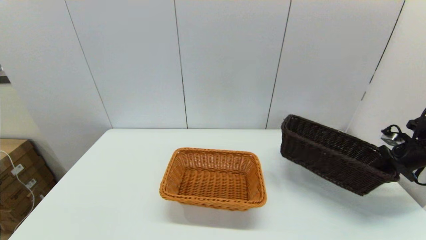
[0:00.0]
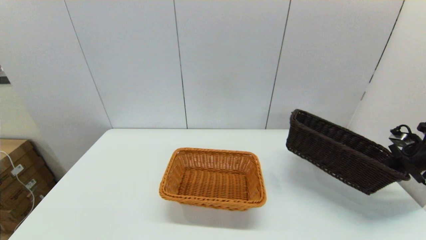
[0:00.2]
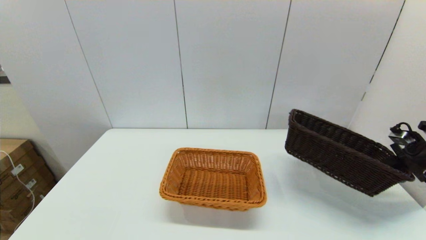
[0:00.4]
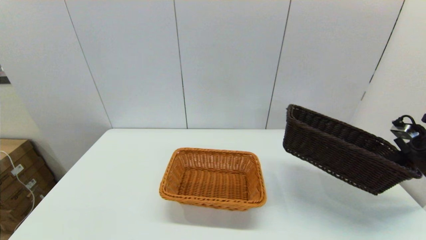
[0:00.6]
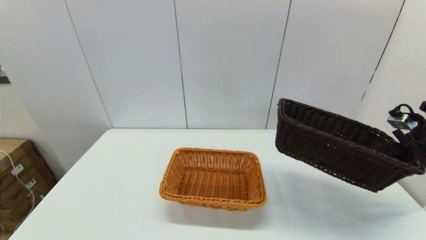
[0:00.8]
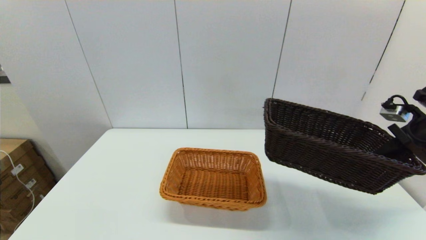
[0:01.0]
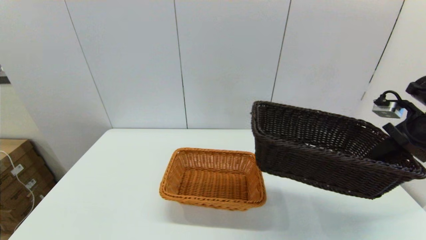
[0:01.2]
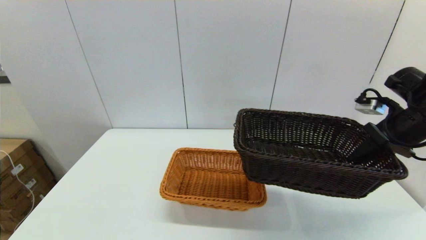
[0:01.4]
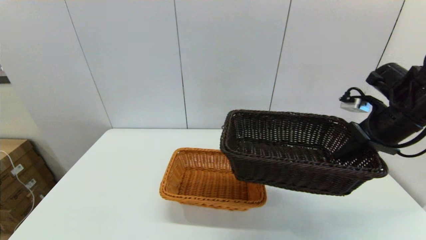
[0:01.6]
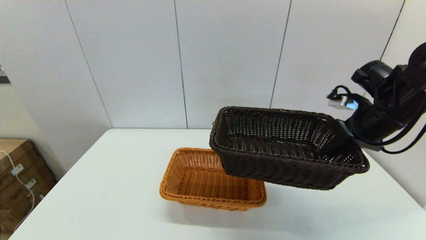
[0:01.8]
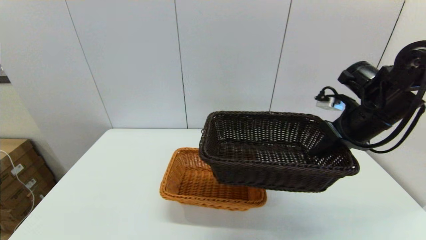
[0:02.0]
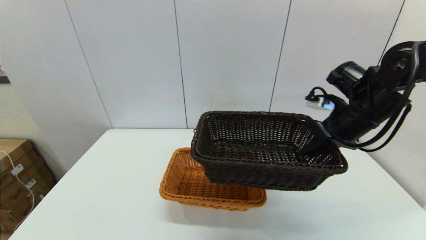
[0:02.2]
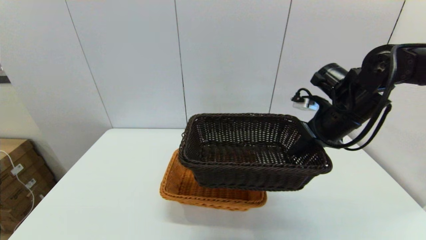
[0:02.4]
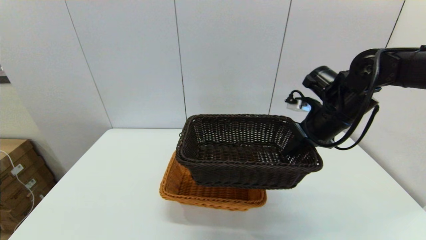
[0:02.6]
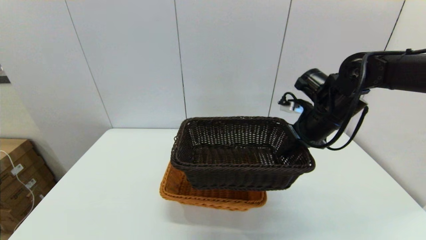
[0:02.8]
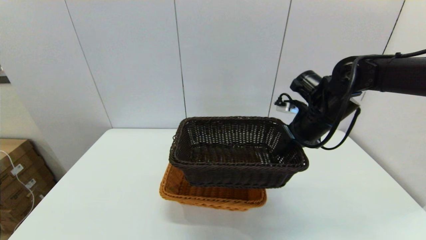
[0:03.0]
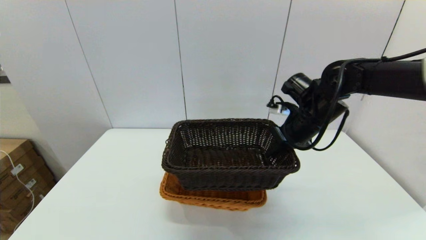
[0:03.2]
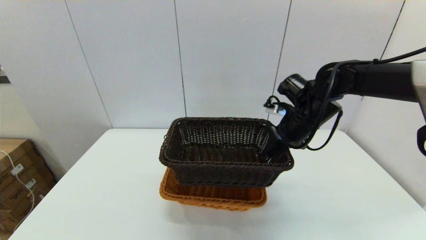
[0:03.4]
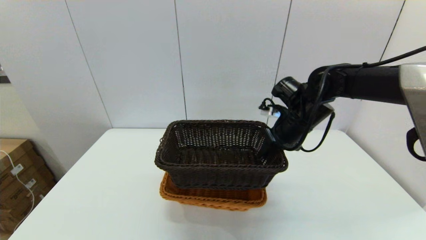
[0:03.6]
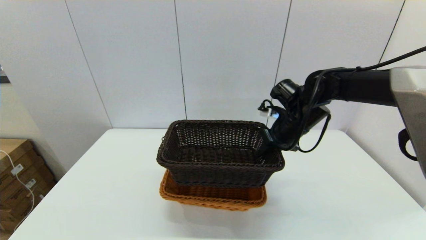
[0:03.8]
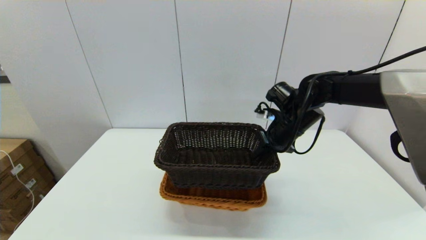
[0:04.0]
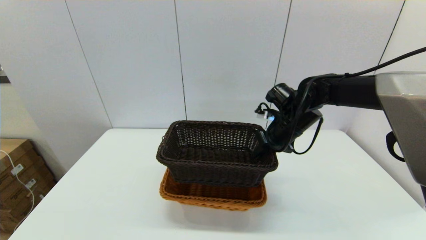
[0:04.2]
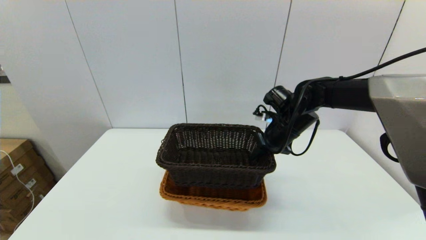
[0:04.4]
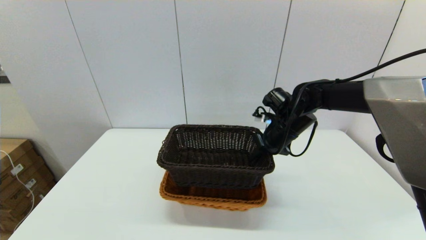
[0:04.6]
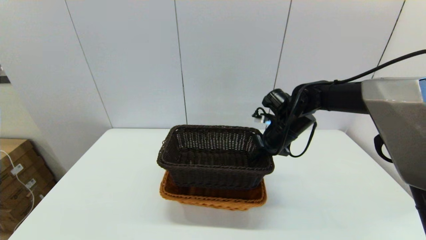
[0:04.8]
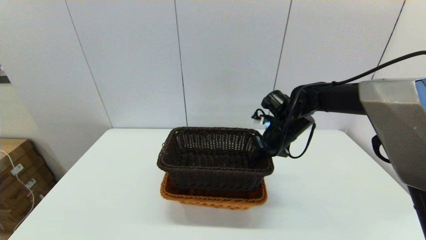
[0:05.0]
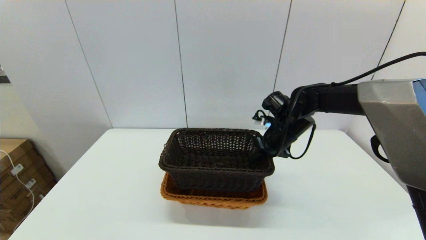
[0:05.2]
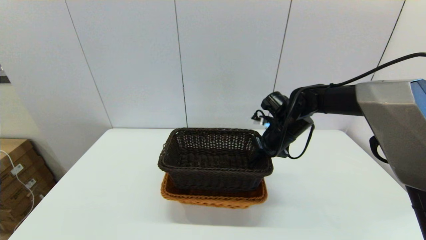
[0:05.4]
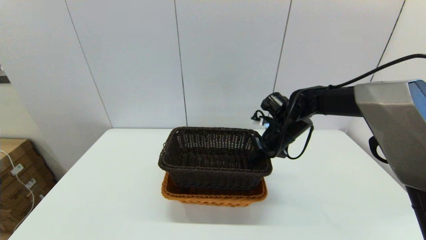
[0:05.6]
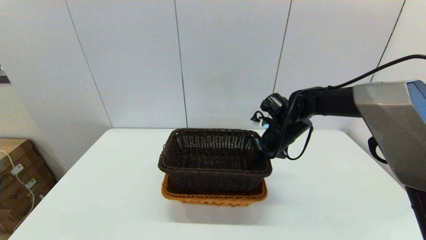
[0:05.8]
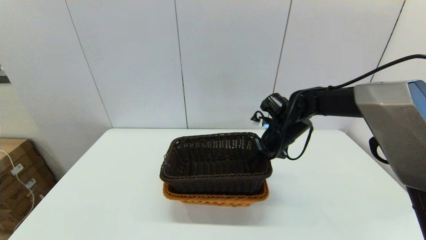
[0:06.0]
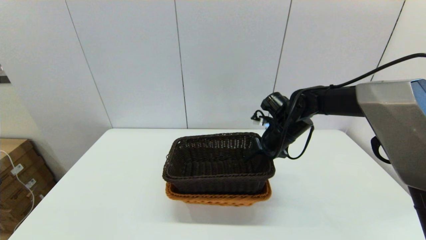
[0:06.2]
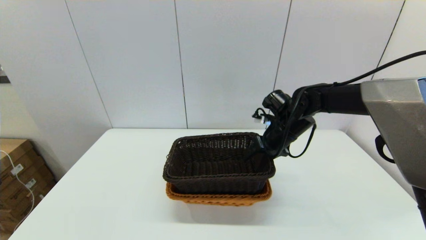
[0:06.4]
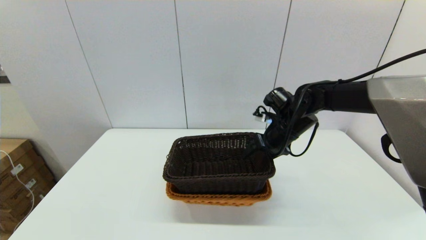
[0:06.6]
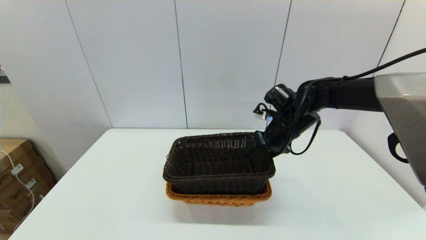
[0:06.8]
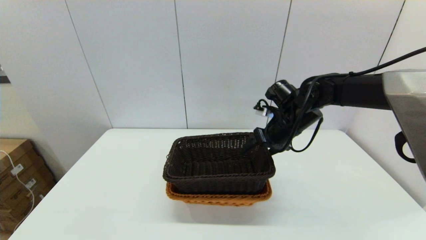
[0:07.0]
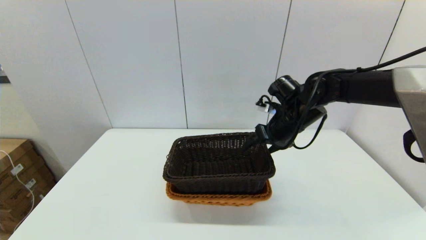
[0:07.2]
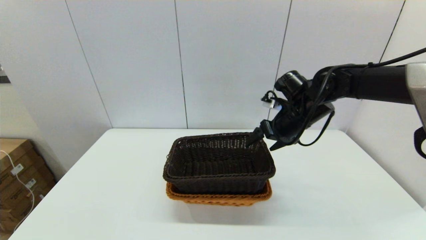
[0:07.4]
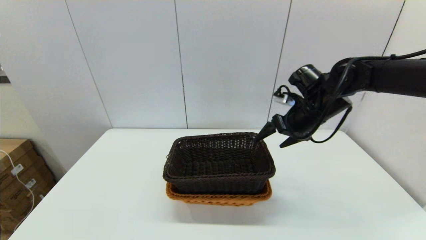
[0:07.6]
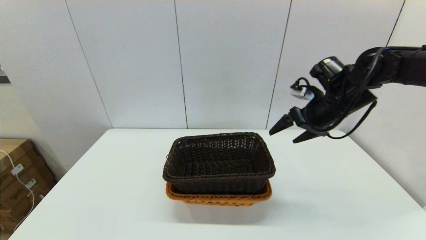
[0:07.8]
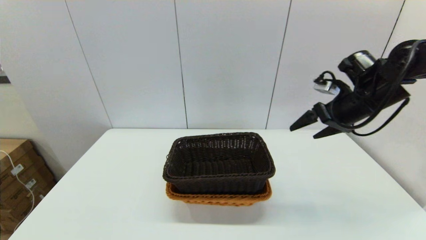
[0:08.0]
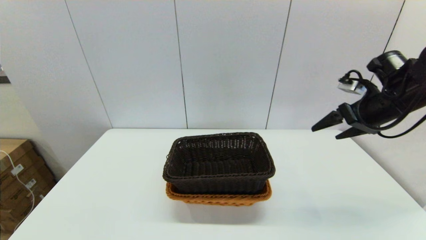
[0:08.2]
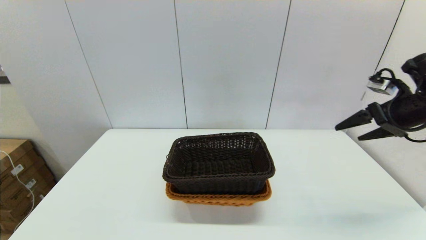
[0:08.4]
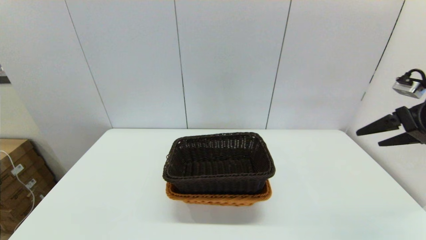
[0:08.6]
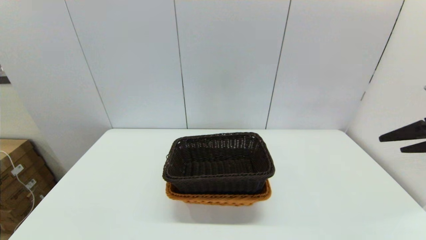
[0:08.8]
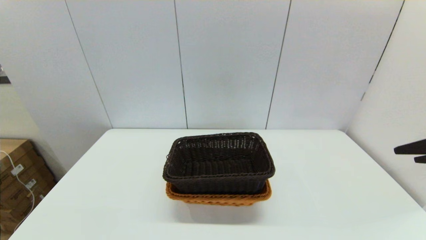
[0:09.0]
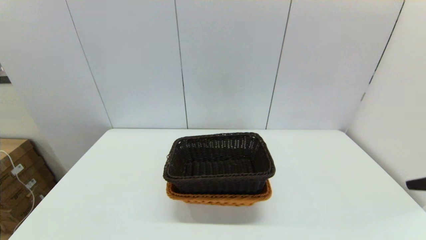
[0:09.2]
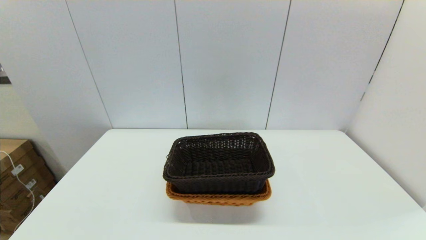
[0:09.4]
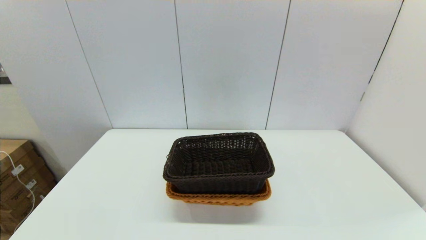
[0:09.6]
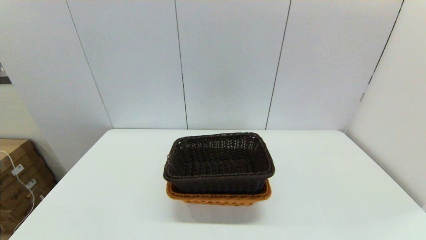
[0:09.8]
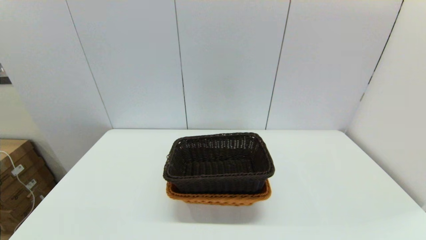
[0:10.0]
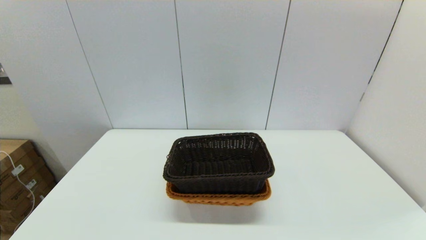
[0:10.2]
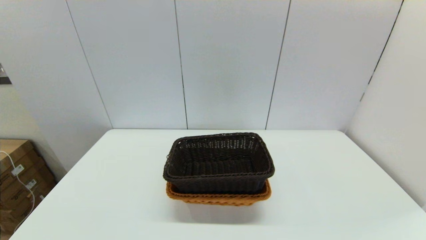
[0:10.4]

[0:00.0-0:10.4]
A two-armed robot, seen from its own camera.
Task of the whole recording: stack a basket on top of another basket.
Step, 0:00.0 to 0:07.6: Place the dark basket into the light color basket with the right gripper.
0:00.0 to 0:01.4: The right gripper travels to the left and upward by about 20 cm.
0:01.4 to 0:03.0: The right gripper travels to the left and forward by some 15 cm.
0:03.0 to 0:04.4: The right gripper changes place by some 5 cm.
0:04.4 to 0:06.0: The right gripper opens.
0:06.0 to 0:07.4: The right gripper is displaced upward by roughly 5 cm, and opens.
0:07.4 to 0:09.0: The right gripper heads backward and to the right, covering approximately 30 cm.

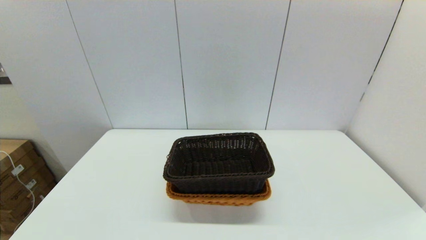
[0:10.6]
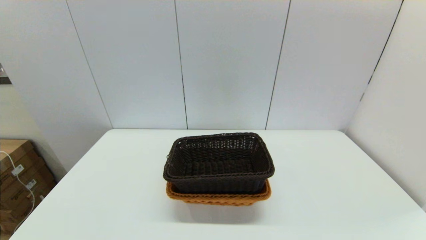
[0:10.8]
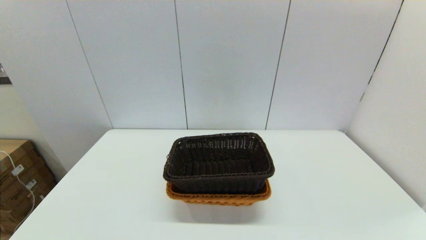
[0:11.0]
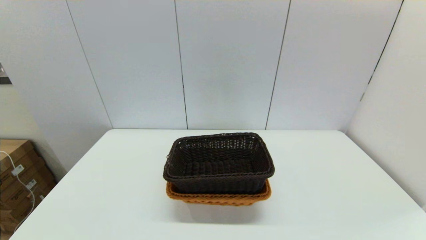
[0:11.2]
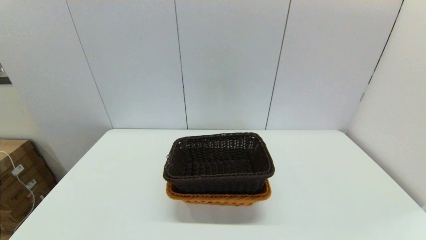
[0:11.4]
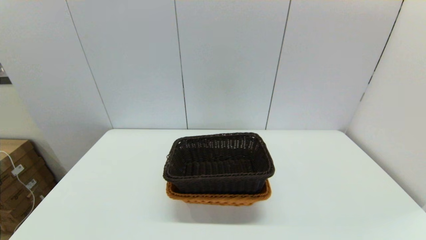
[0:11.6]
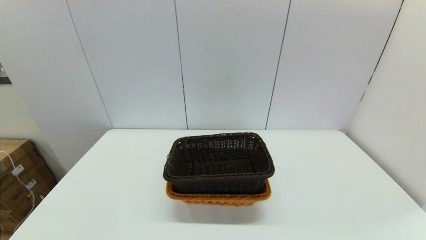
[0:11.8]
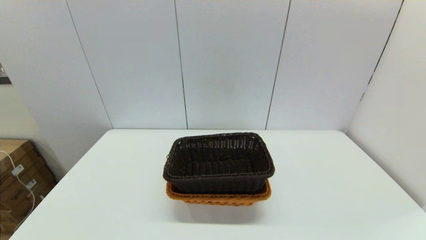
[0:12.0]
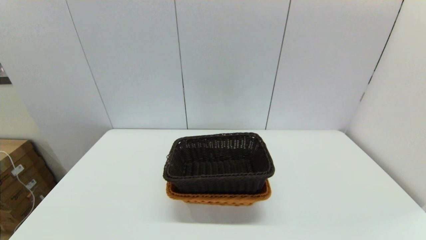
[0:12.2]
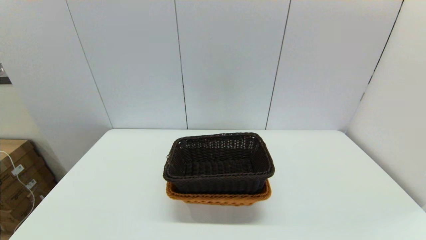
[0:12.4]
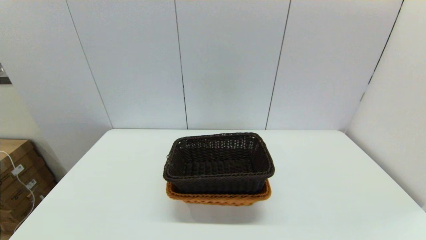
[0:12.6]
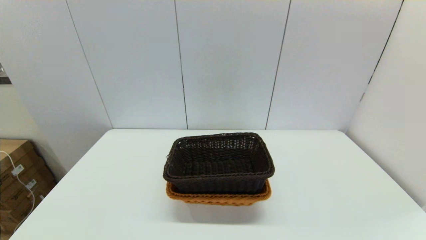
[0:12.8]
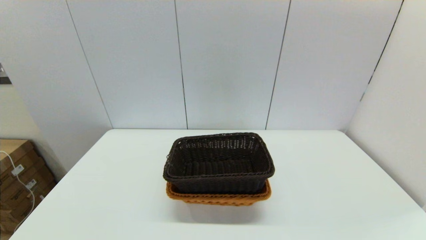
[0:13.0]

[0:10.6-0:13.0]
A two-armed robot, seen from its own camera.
Task of the whole recording: stack a basket on top of another basket.
0:11.8 to 0:13.0: Both grippers stay about where they are.

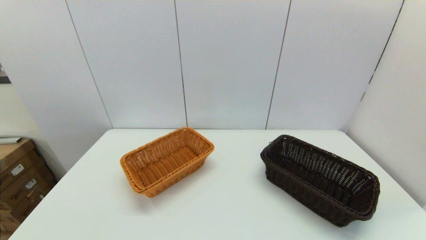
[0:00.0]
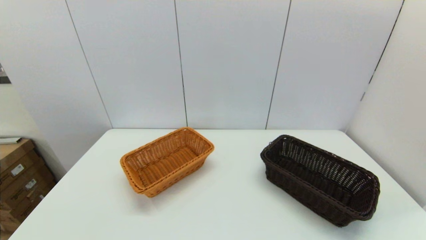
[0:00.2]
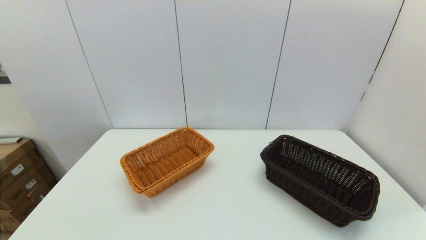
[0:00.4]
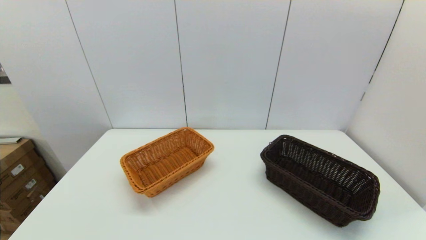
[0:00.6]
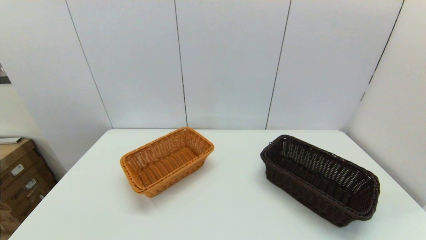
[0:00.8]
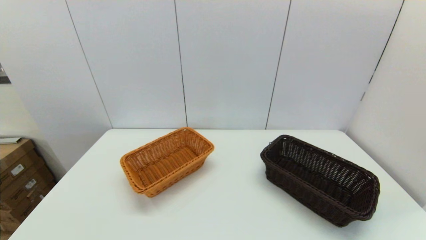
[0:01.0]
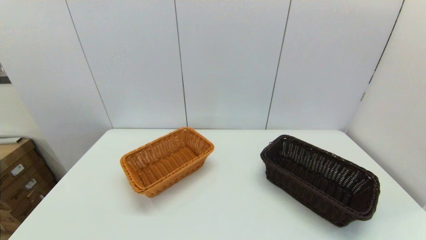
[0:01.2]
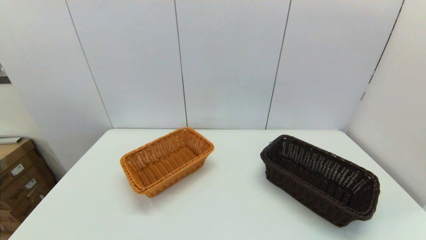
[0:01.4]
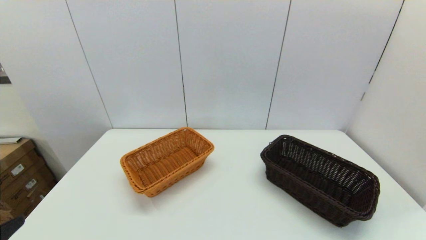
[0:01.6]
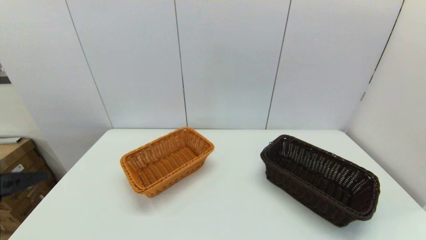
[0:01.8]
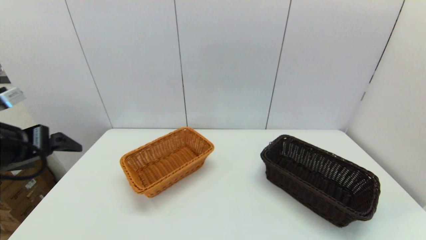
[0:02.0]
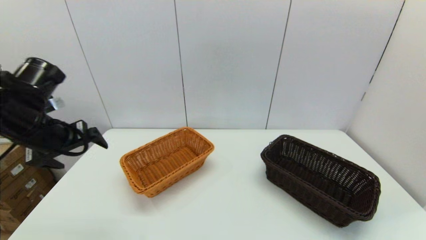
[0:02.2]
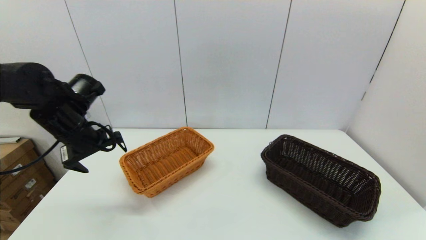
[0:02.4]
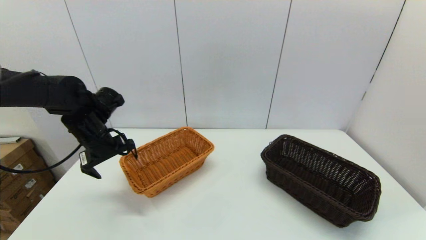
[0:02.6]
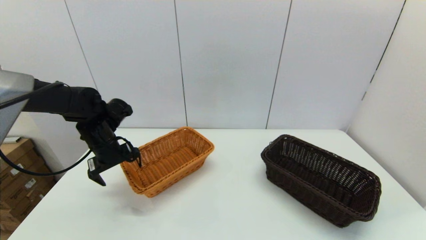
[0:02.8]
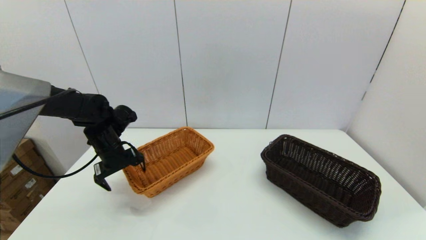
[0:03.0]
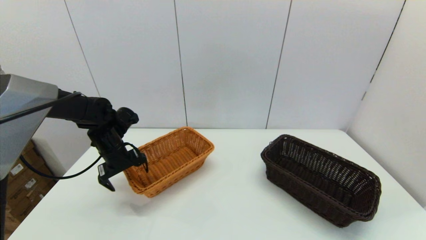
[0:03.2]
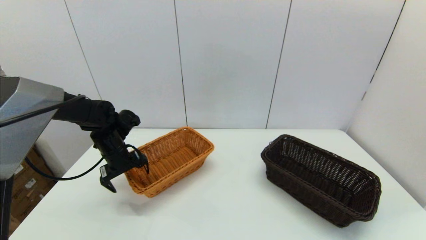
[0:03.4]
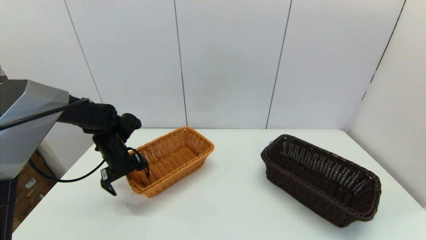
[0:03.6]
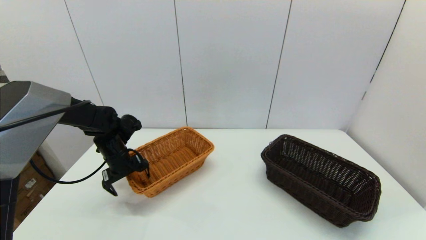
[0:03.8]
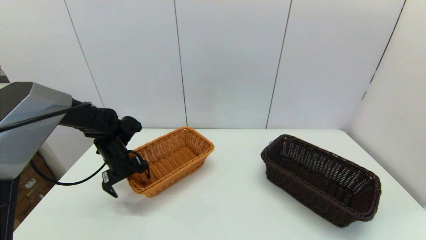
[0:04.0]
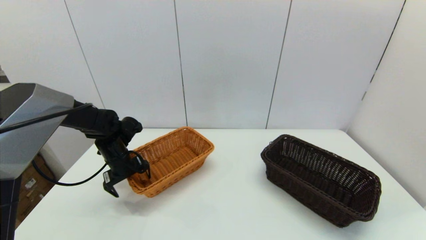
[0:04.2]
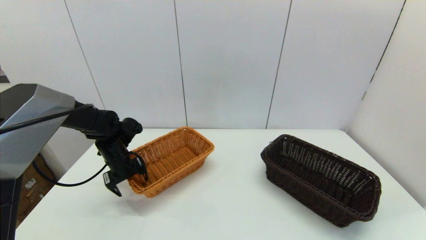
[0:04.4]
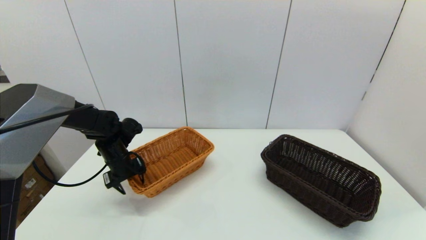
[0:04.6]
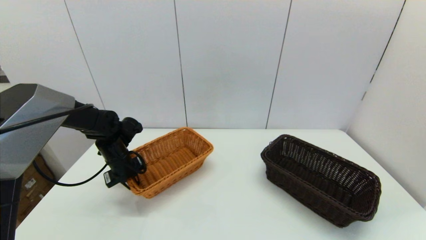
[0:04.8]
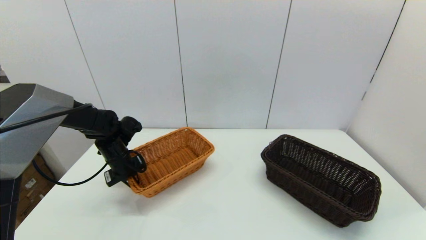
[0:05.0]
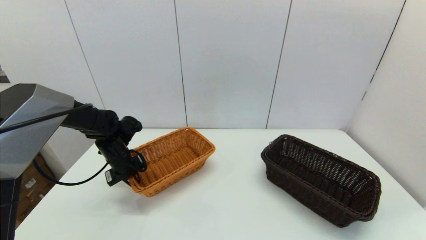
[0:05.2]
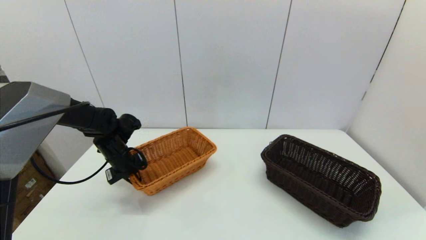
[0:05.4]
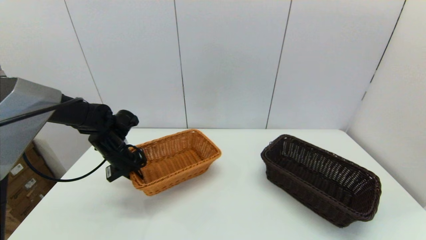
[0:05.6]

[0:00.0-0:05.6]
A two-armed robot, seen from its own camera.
Task of the whole recording: stack a basket on top of another basket.
0:01.4 to 0:02.8: The left gripper travels forward by some 35 cm.
0:02.8 to 0:04.2: The left gripper moves downward, approximately 5 cm.
0:04.2 to 0:05.6: The left gripper closes its fingers.
